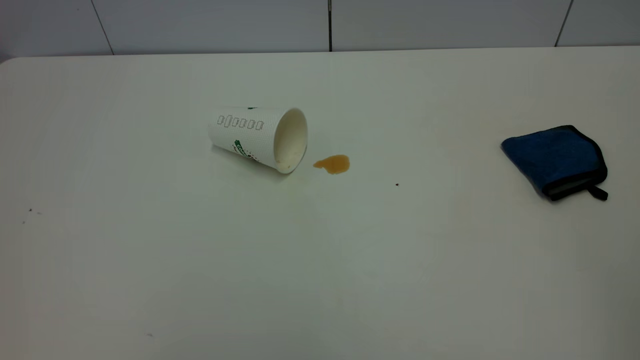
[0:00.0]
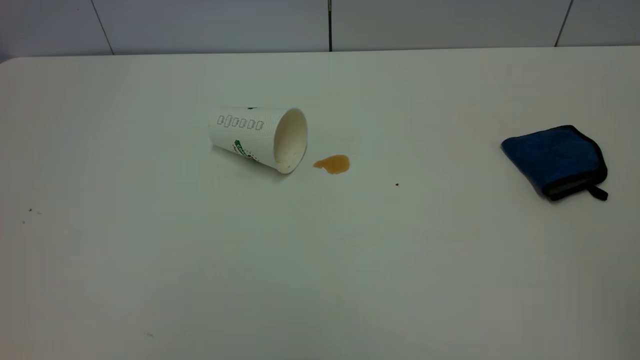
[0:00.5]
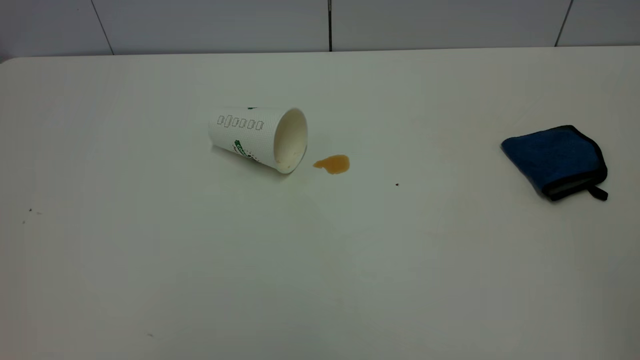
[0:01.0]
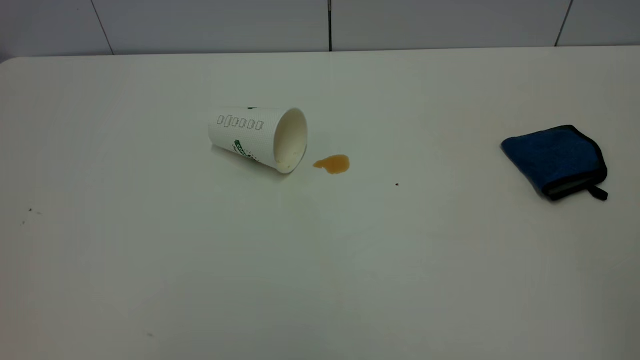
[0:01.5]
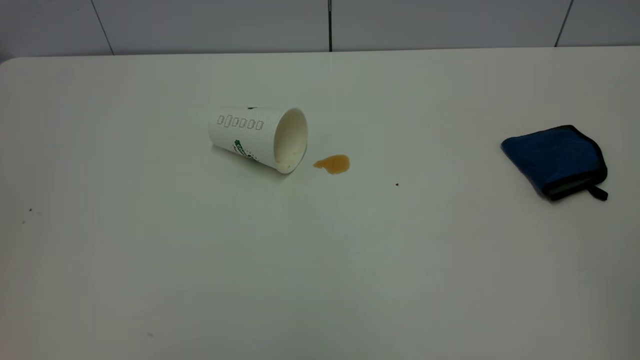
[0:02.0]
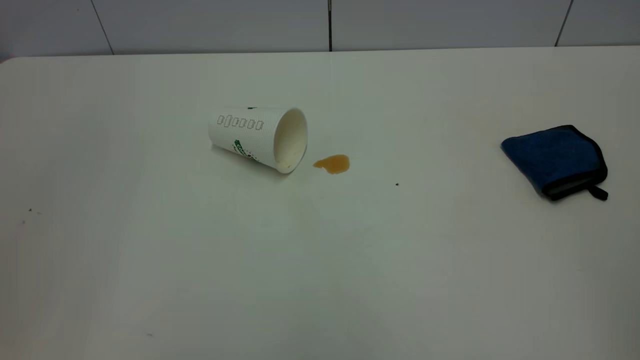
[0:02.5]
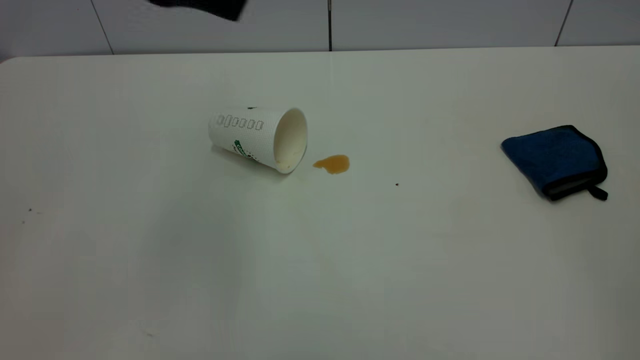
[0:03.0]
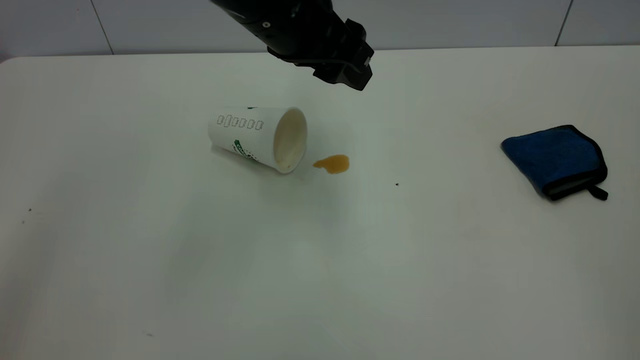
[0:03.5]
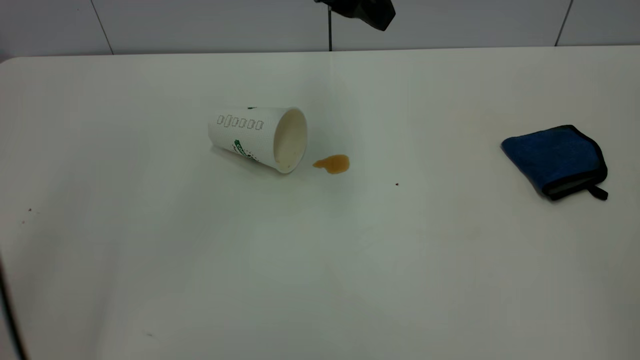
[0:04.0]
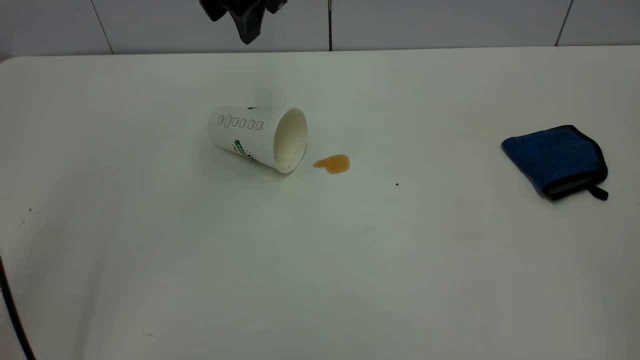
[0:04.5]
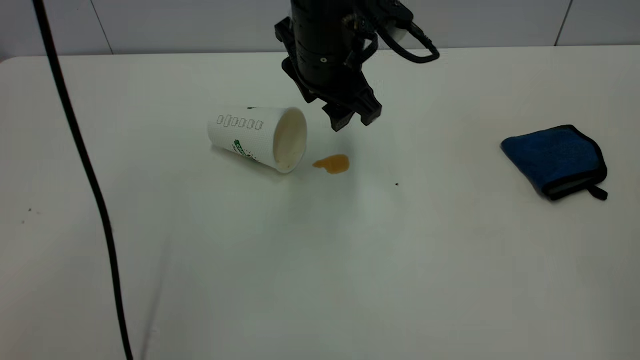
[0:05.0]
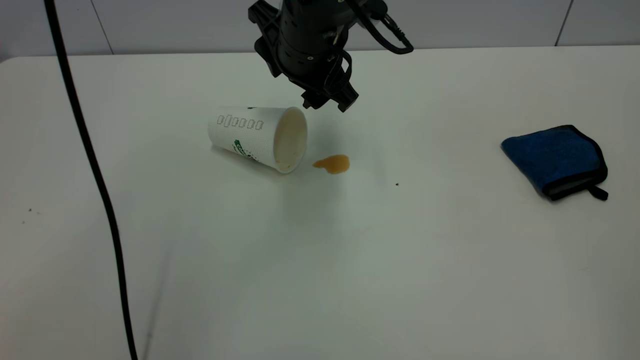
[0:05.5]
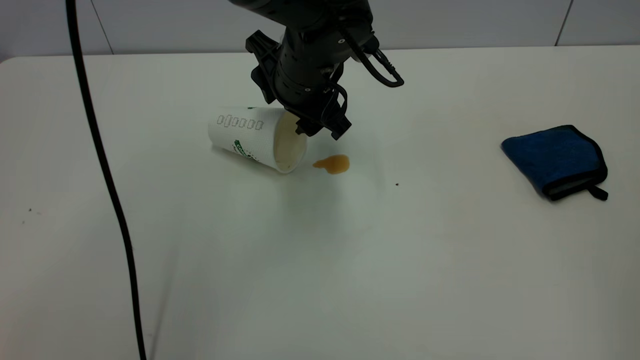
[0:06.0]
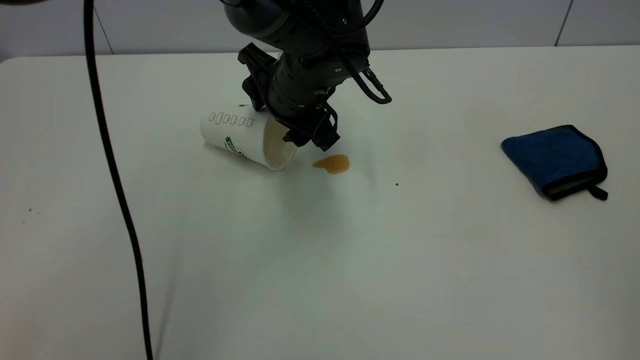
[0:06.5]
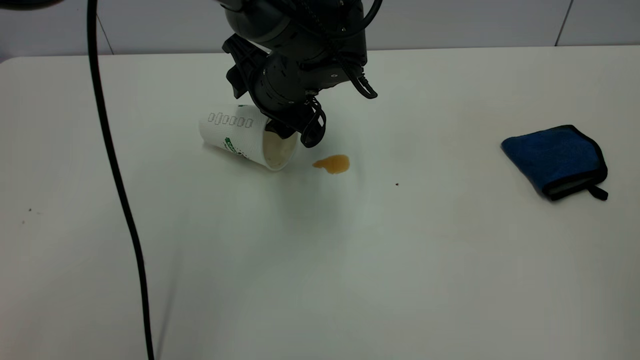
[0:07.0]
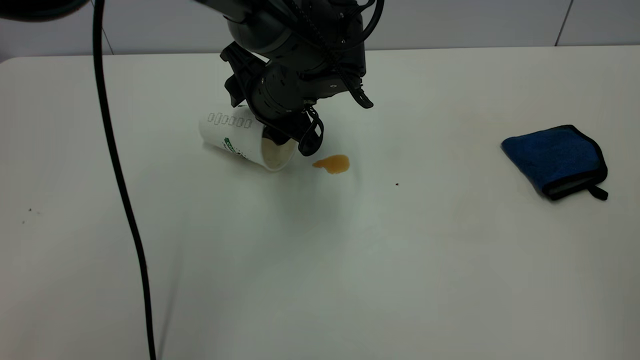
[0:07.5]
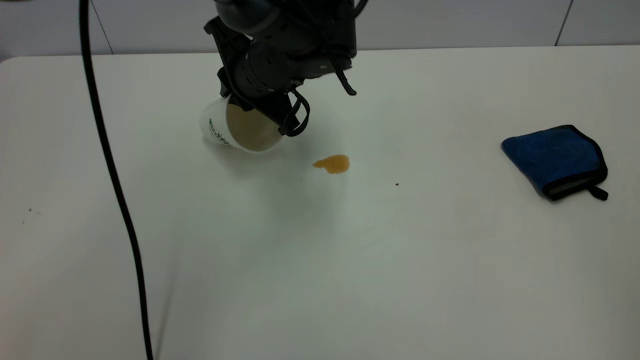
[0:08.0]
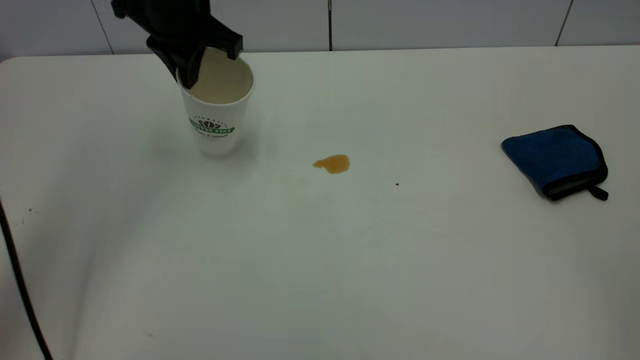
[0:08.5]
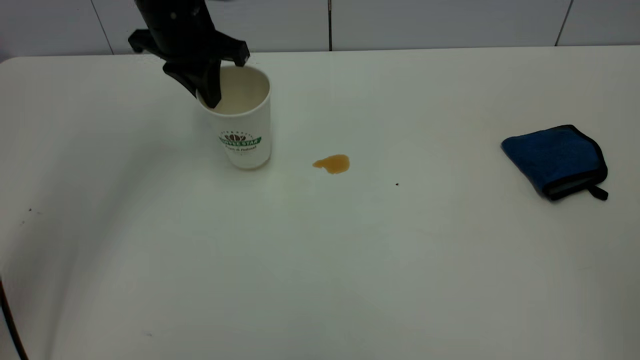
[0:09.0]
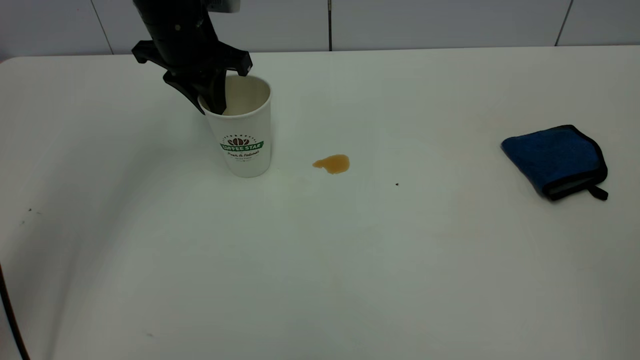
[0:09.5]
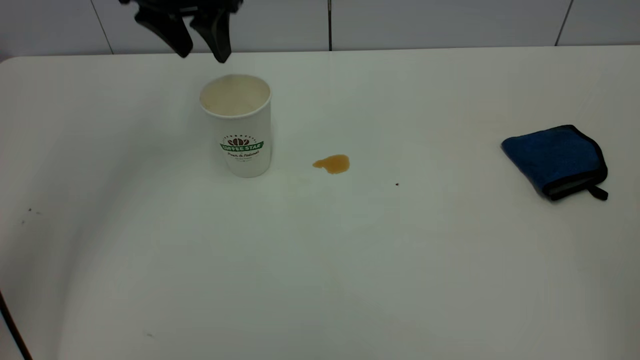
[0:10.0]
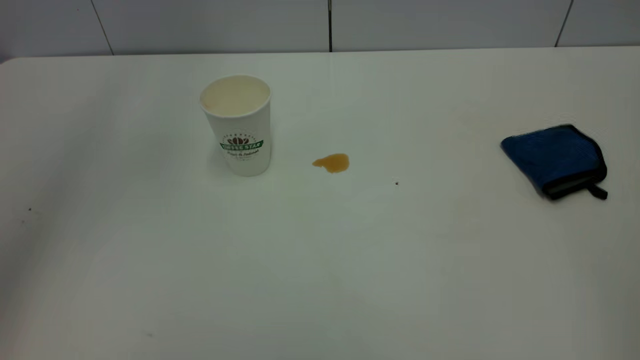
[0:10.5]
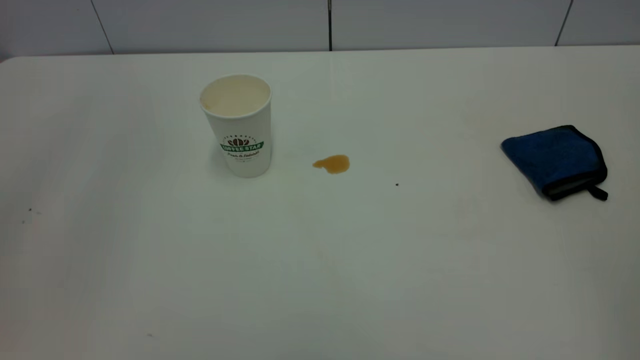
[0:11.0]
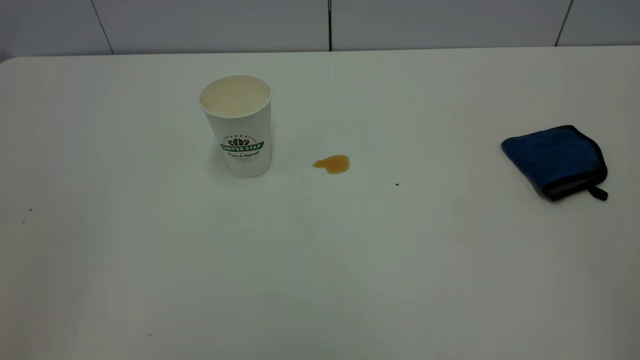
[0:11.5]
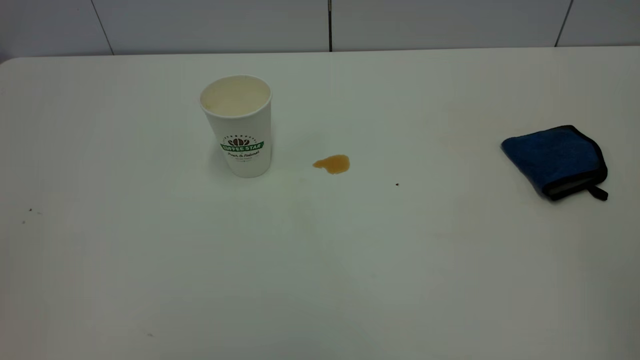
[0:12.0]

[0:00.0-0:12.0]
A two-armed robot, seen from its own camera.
Task of the whole recording: the left gripper pick up the fallen cup and place it upright, the right gripper grasp the blue rag and wipe the tea stain on the table, the right gripper put the blue rag back in its original position.
Step, 0:00.0 to 0:09.5: Stand the paper cup upright.
0:02.0 to 0:04.0: The left gripper is displaced forward and to the right by about 40 cm.
0:04.0 to 0:06.0: The left gripper goes roughly 15 cm downward.
0:06.0 to 0:08.0: The left gripper closes up.
0:08.0 to 0:10.0: The left gripper is displaced upward and to the left by roughly 15 cm, and opens up.
0:10.0 to 0:12.0: The left gripper is displaced backward by some 40 cm.

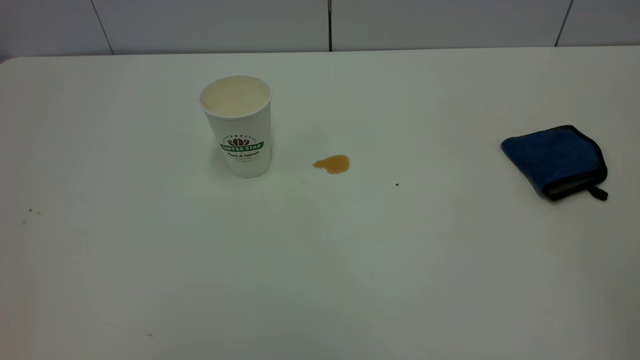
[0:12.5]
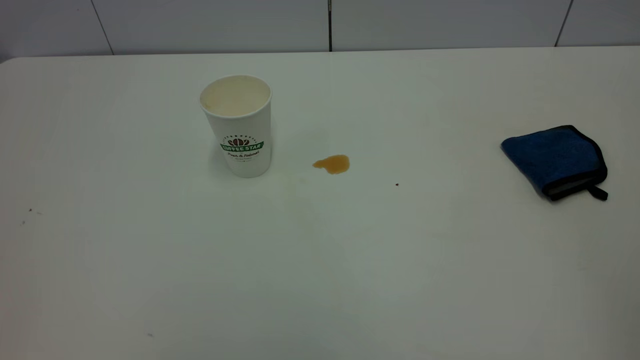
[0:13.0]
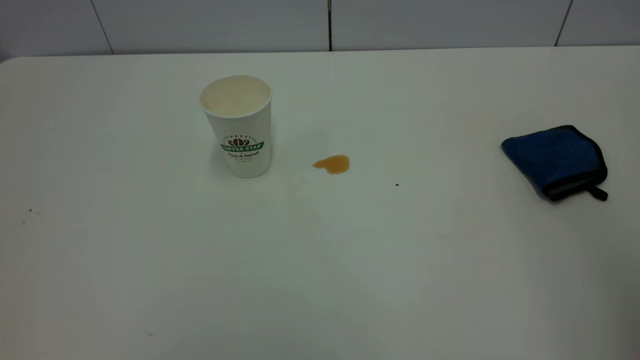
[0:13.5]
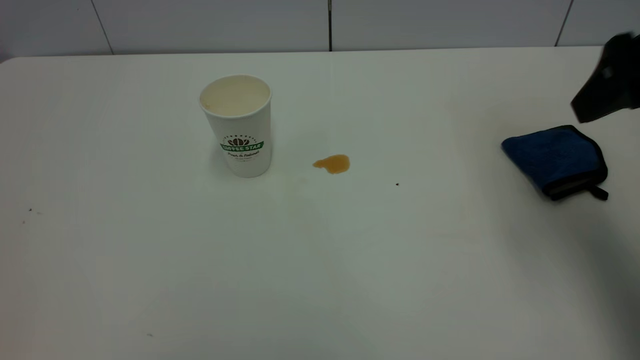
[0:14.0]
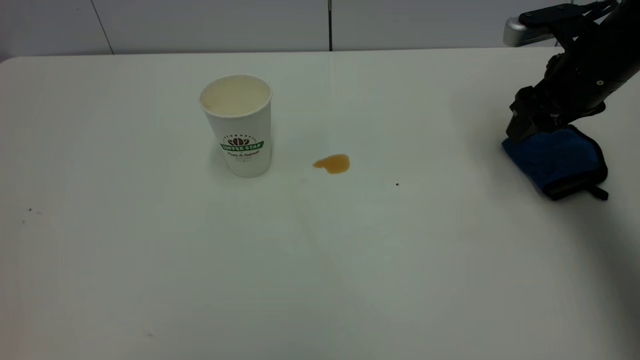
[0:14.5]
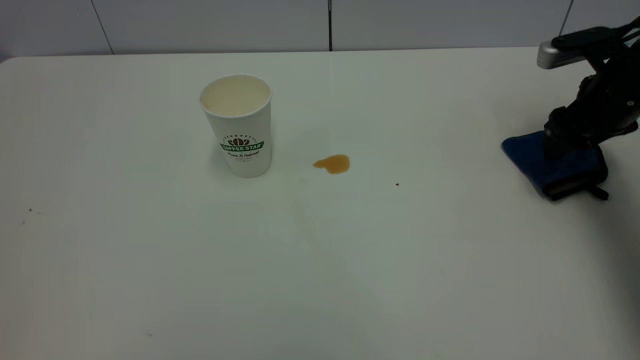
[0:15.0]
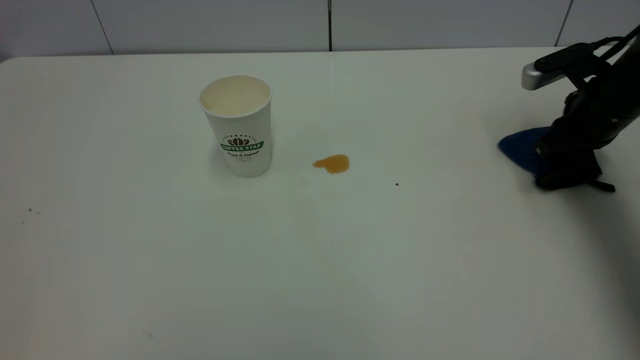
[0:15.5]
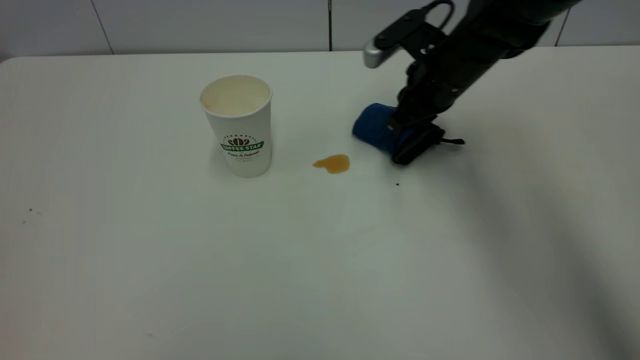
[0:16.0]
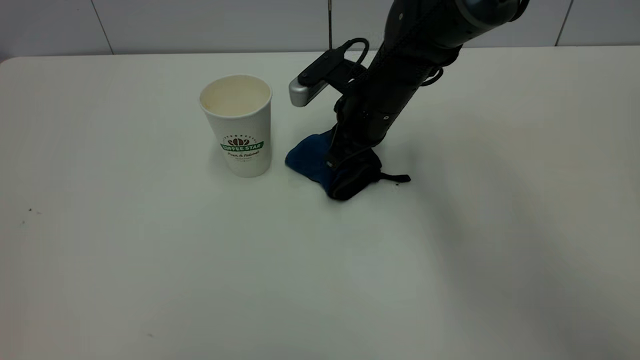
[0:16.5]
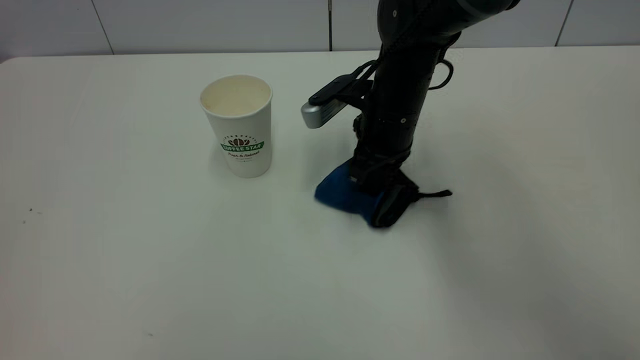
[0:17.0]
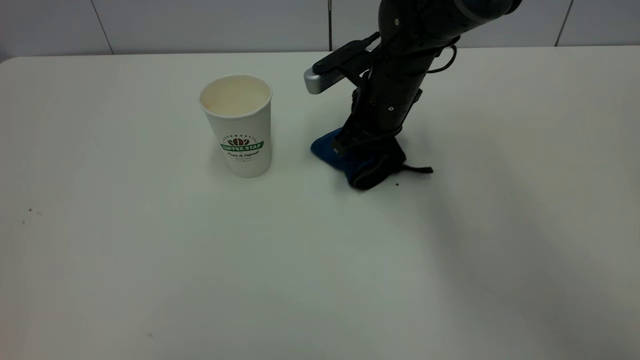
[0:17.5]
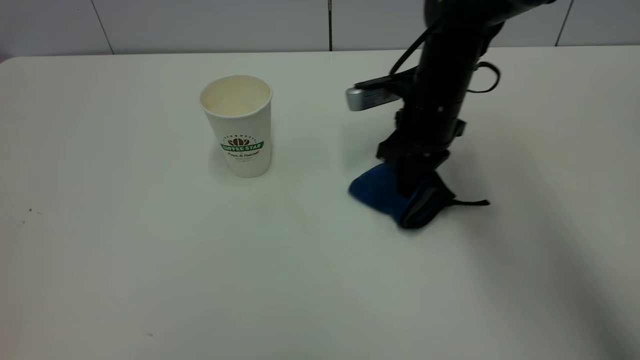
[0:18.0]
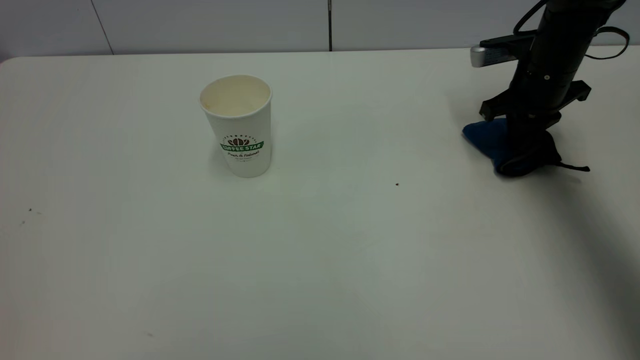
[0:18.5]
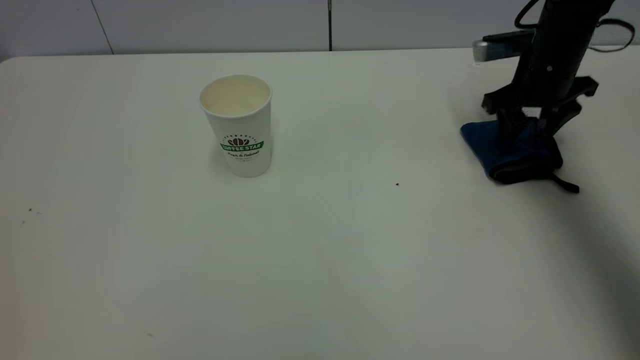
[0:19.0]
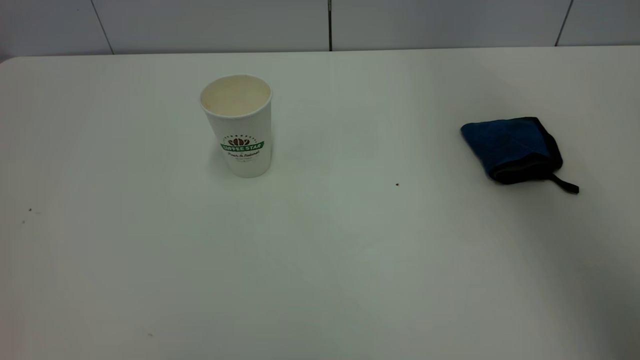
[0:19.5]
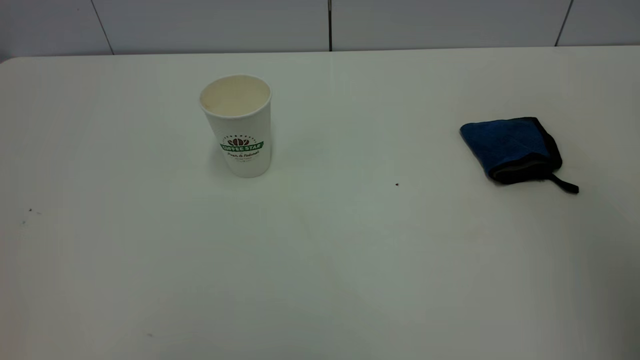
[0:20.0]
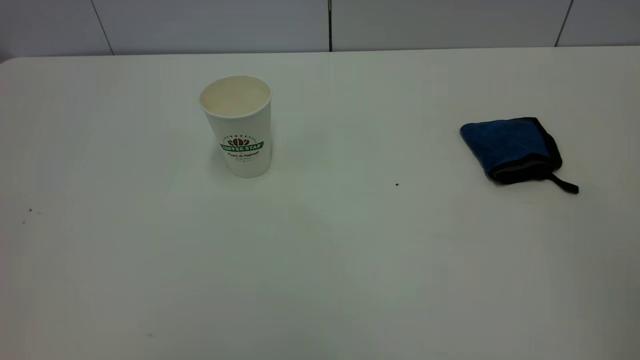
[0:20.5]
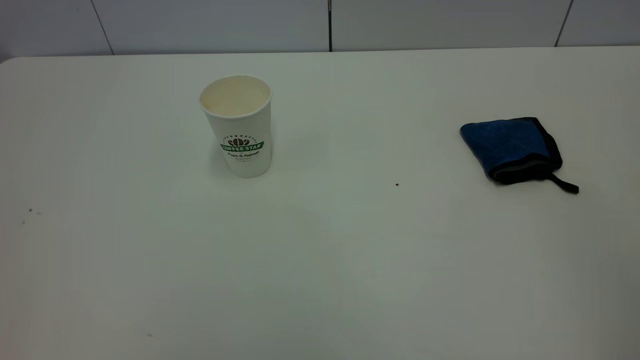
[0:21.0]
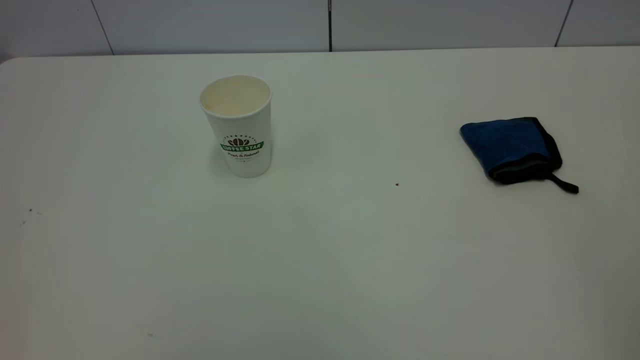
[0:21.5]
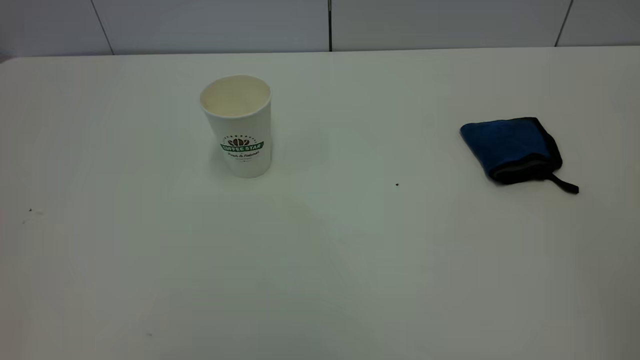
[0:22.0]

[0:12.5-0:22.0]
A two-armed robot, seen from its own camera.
Task of the whole recording: the left gripper pick up the fallen cup and place it upright, the right gripper grasp the blue rag and wipe the tea stain on the table, the right gripper put the blue rag back in its original position.
Step, 0:12.5 to 0:19.0: Wipe the stains off the table with a rag.
0:12.5 to 0:14.5: The right gripper shifts roughly 50 cm forward and downward.
0:14.5 to 0:16.5: The right gripper travels to the left by roughly 25 cm, and closes up.
0:16.5 to 0:18.0: The right gripper shifts some 10 cm to the right.
0:18.0 to 0:20.0: The right gripper shifts about 40 cm upward and backward, and opens its fingers.
